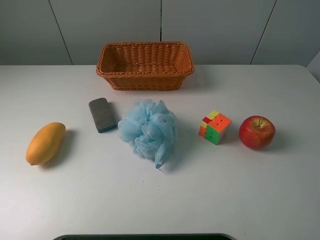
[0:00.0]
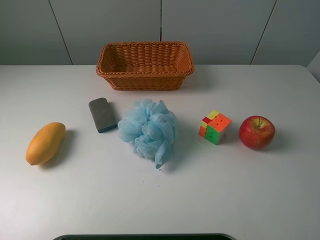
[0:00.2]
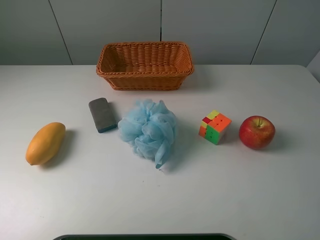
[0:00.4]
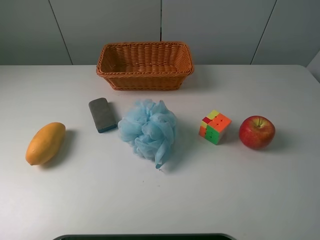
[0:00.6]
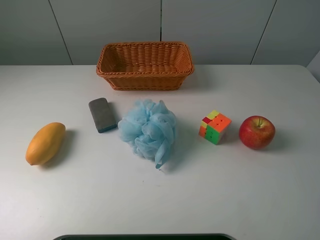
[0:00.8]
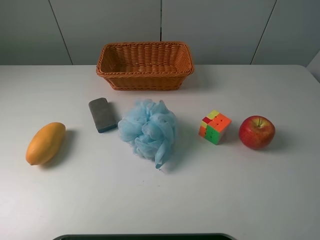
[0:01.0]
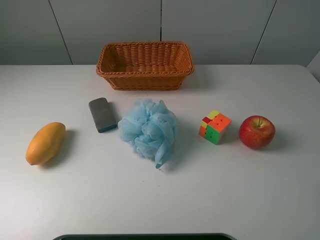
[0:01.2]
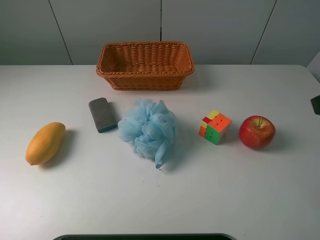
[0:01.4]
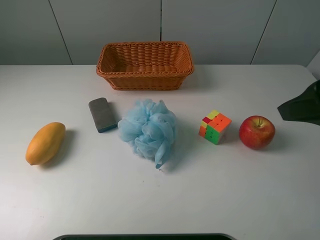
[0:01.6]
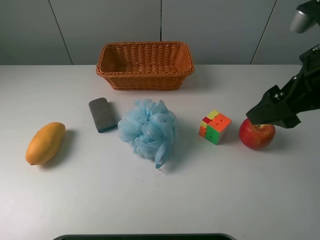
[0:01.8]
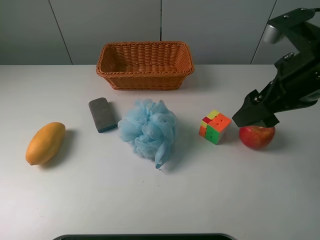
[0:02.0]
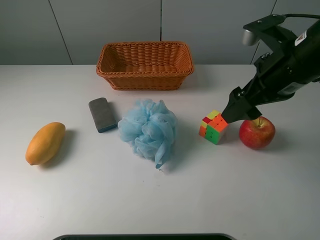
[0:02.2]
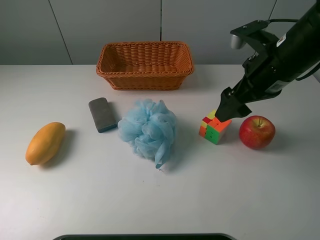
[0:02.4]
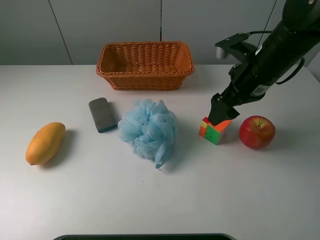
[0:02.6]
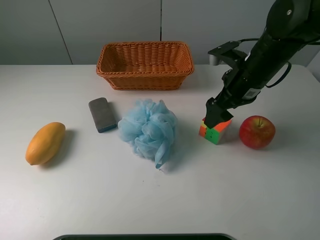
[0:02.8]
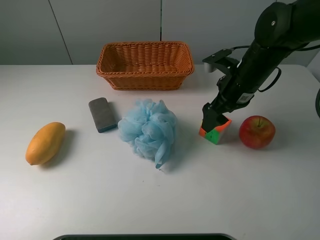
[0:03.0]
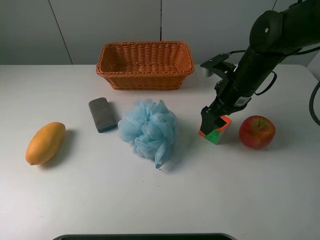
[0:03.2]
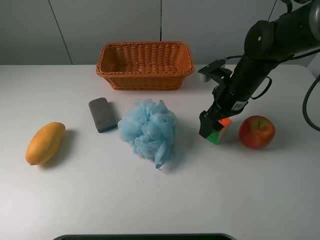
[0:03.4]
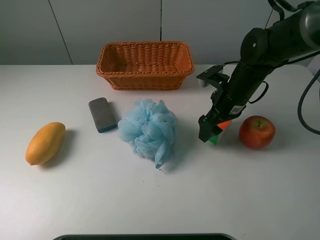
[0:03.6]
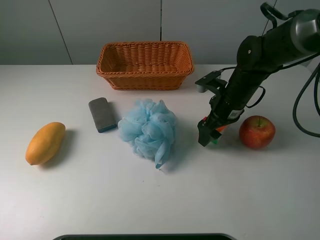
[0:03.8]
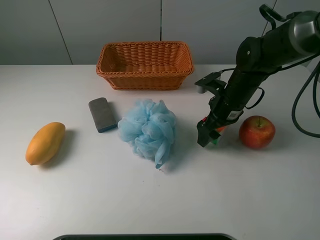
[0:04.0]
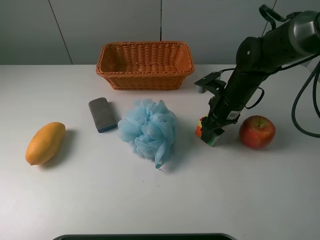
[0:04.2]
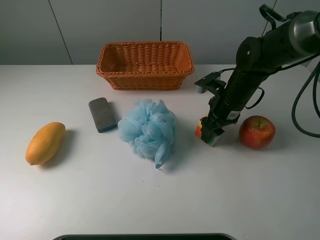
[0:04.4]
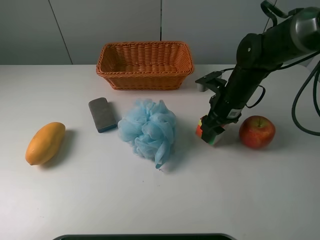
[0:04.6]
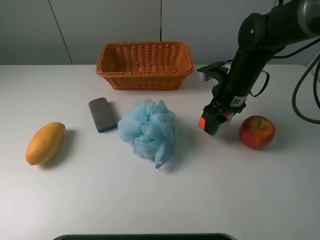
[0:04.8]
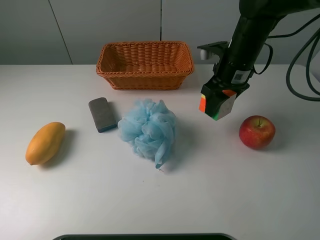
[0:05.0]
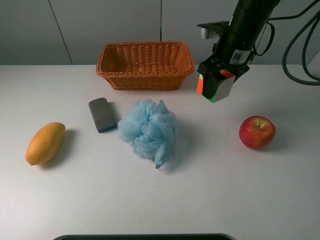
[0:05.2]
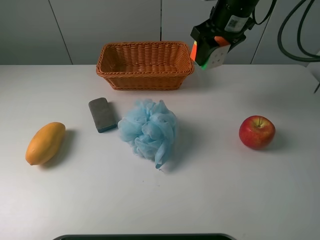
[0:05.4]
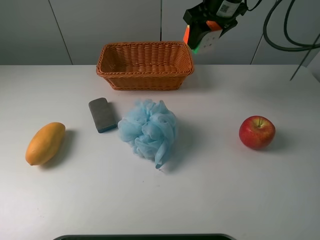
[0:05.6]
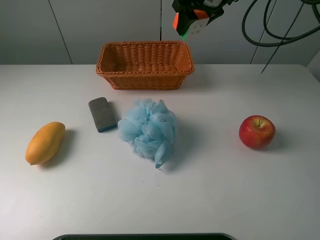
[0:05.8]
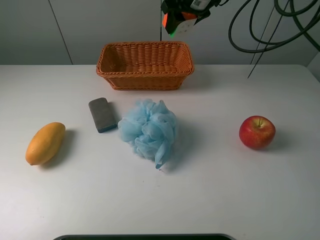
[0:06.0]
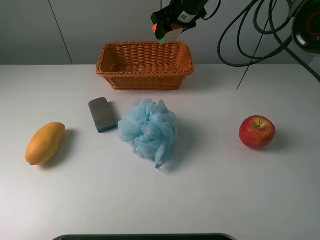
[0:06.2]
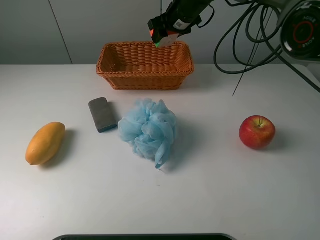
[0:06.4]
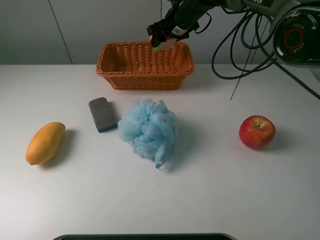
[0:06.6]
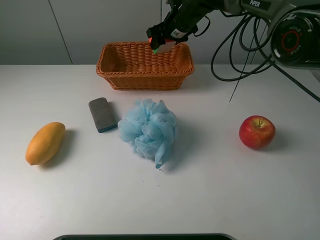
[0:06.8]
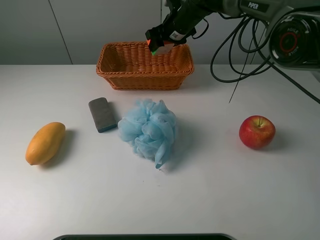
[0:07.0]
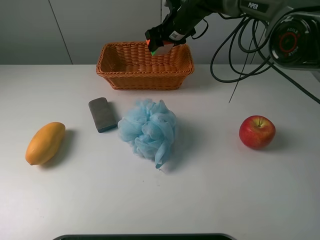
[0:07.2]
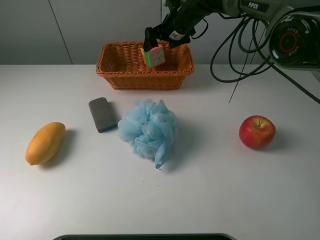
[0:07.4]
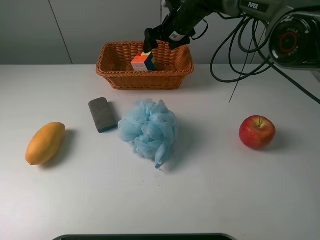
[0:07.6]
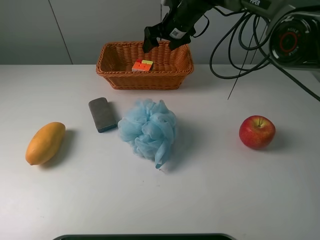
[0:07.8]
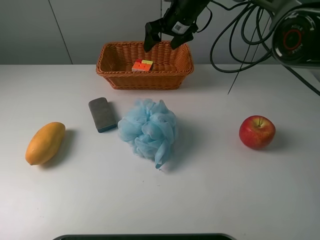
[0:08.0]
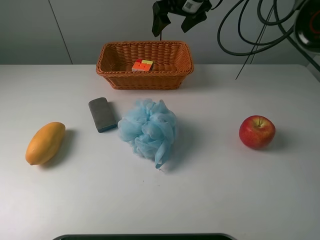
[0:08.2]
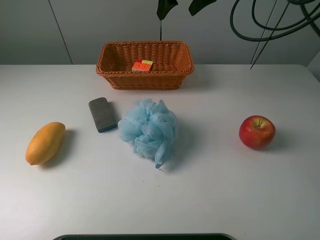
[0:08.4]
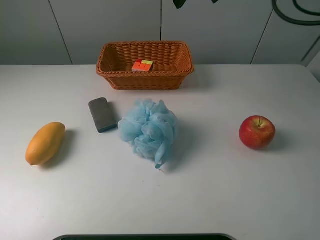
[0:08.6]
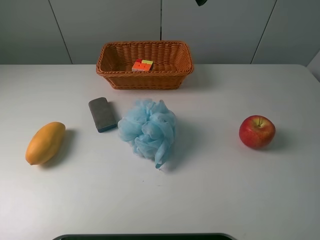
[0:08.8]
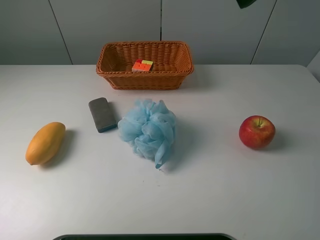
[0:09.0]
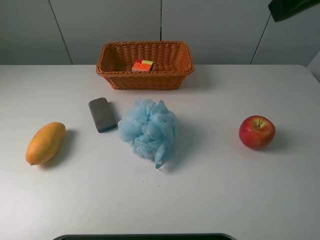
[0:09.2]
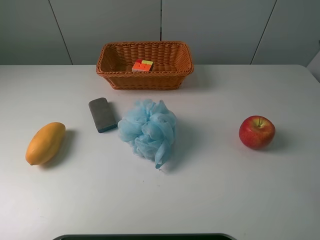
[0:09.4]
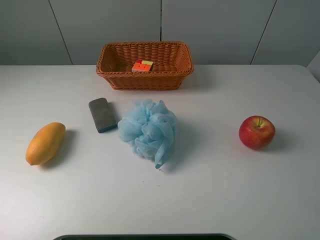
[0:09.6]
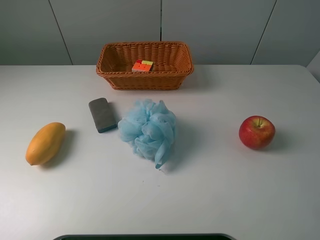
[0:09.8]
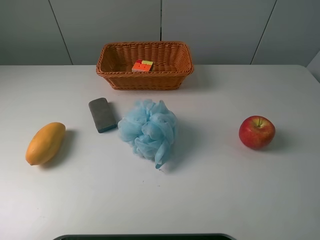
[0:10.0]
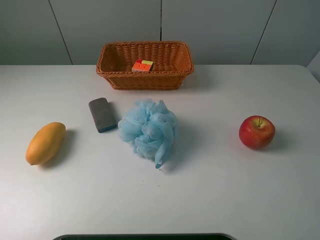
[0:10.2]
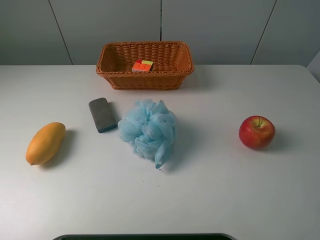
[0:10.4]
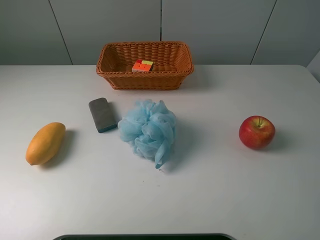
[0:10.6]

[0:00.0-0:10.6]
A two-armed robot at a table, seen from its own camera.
Task of the whole recording: use a picker to grab the item closest to the apple and place it in the basket.
Step, 0:00.0 to 0:04.4: Grasp the Rubik's Cube with the right gripper.
Step, 0:04.6 to 0:07.8: Place the Rubik's Cube into the basket with the right gripper.
0:00.0 to 0:01.6: The right gripper moves forward, approximately 15 cm.
0:01.6 to 0:03.0: The right gripper shifts some 25 cm forward, downward and to the left.
0:03.0 to 0:04.6: The right gripper closes up.
0:04.6 to 0:06.0: The right gripper goes approximately 25 cm forward, upward and to the left.
0:06.0 to 0:07.6: The right gripper goes roughly 10 cm downward, and opens up.
0:07.6 to 0:09.0: The right gripper moves backward, upward and to the right, about 40 cm.

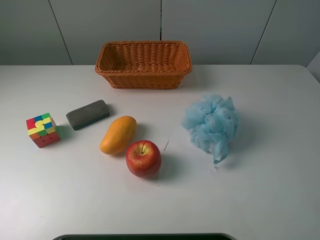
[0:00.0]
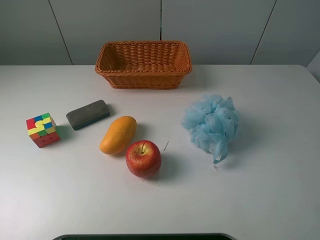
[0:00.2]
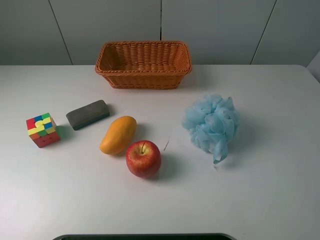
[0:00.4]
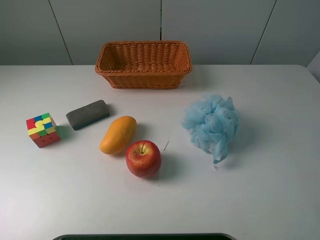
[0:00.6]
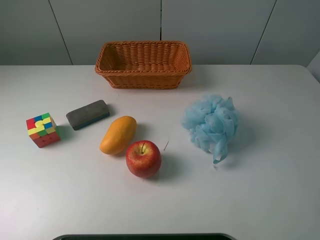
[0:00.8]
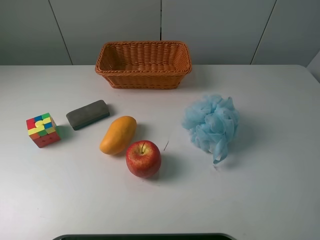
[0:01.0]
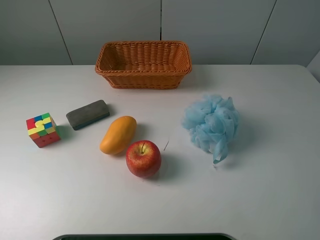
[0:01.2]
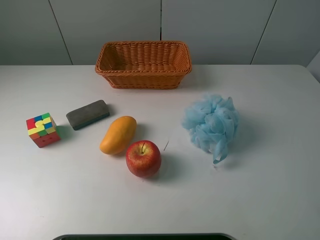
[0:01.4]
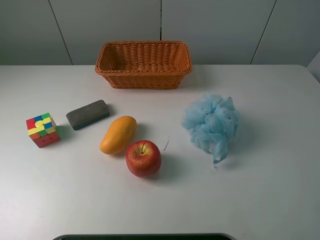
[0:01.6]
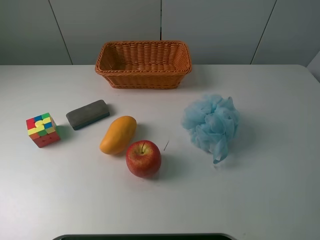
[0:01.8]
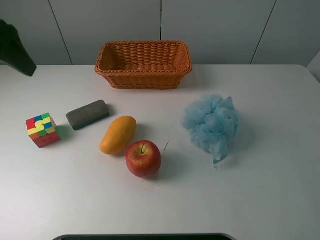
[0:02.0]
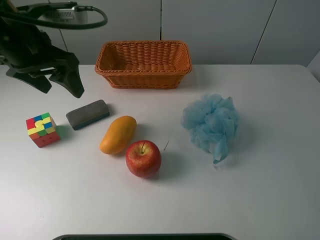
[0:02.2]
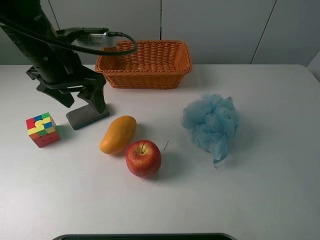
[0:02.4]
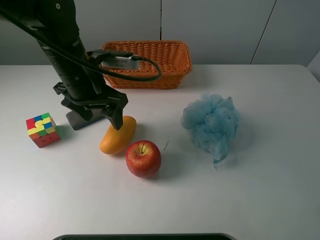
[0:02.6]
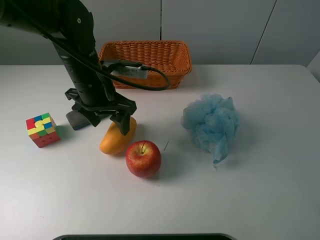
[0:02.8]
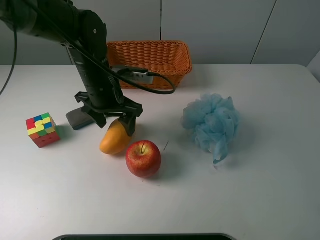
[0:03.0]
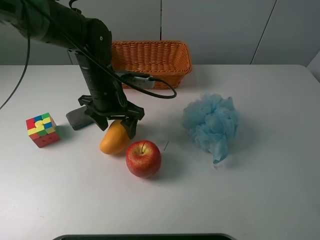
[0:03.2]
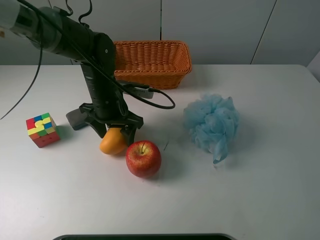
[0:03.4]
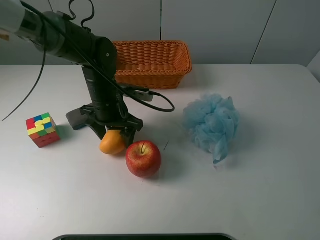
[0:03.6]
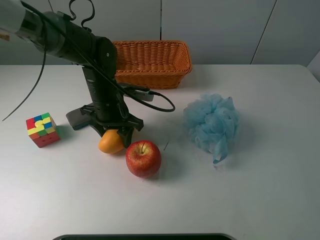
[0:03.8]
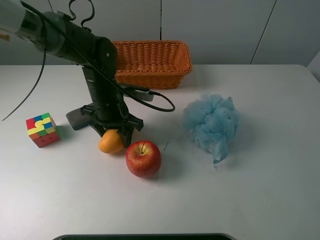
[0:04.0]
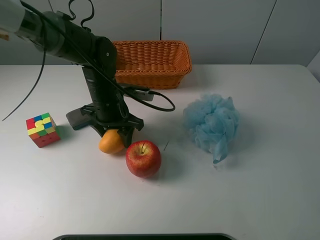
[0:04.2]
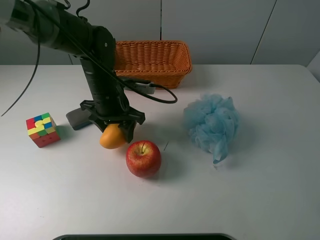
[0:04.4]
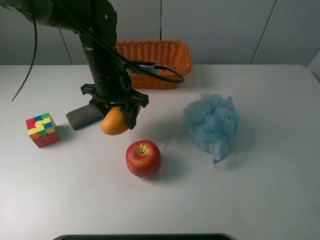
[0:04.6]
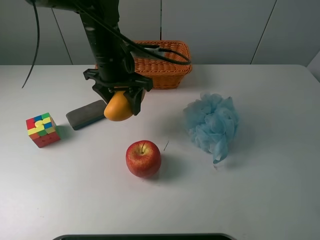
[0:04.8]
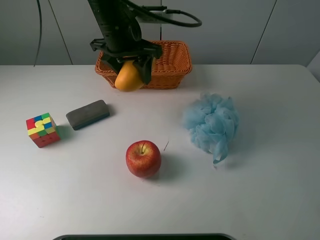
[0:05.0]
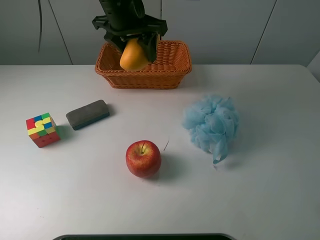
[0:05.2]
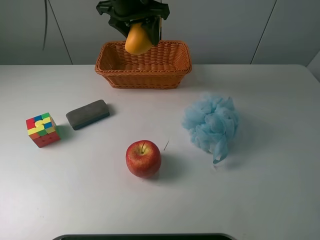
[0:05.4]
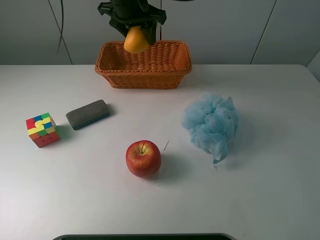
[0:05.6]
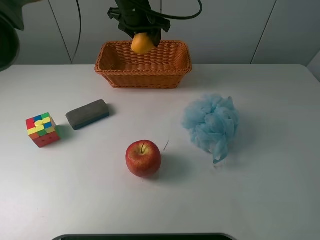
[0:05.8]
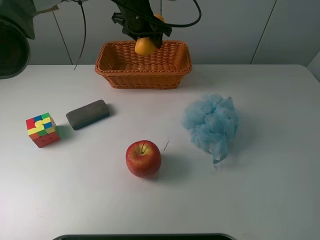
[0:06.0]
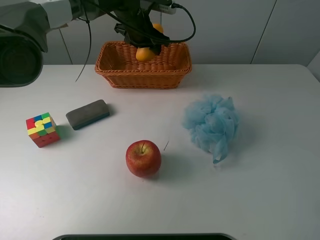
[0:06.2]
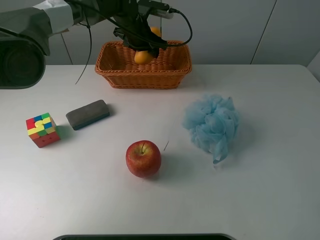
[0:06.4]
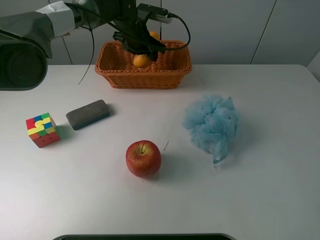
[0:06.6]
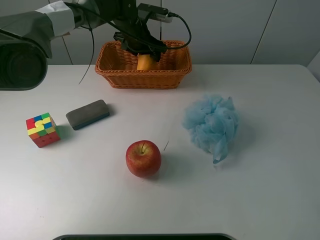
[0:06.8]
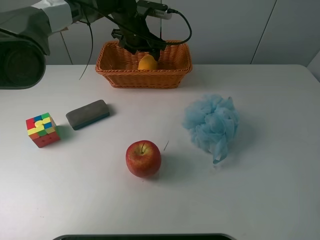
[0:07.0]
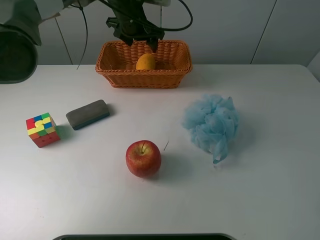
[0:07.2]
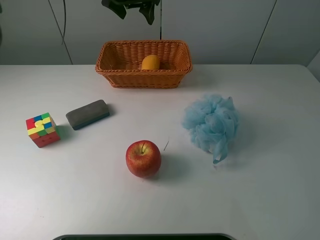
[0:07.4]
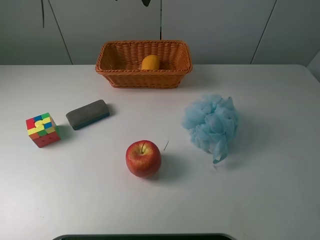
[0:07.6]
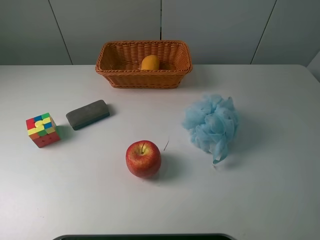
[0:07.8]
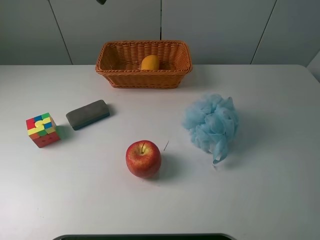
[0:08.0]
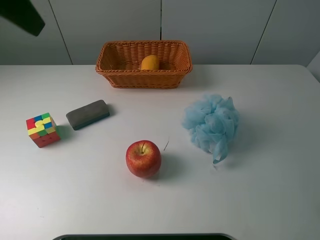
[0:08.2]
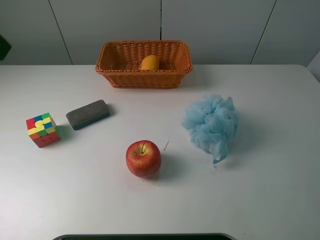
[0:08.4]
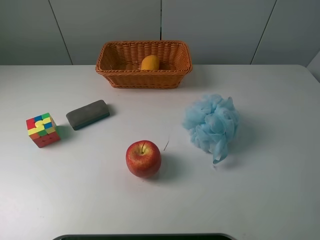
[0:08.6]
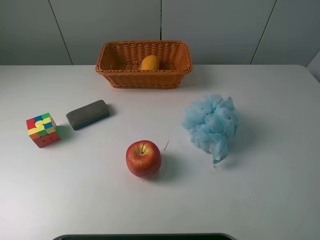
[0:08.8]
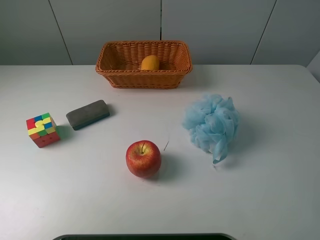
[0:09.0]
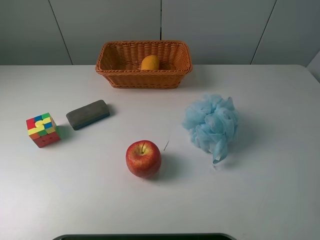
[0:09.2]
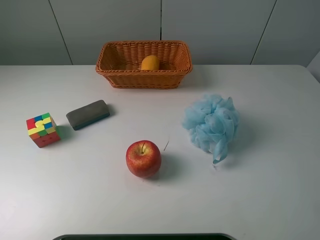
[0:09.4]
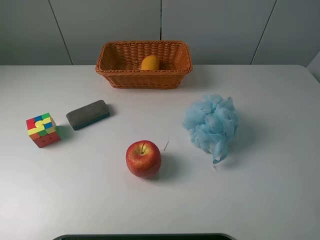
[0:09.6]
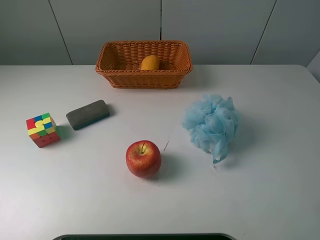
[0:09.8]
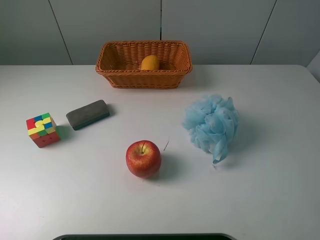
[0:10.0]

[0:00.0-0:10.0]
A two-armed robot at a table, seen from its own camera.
Task of the whole recording: use a picker to grab the item closest to the apple and place it in the basket.
Step, 0:00.0 to 0:04.0: Grasp the mango with the left gripper.
Step, 0:04.2 to 0:07.2: Place the mango into the basket with the left gripper.
0:01.4 to 0:02.8: The left gripper moves forward, to the right and downward, approximately 35 cm.
0:02.8 to 0:04.2: The left gripper moves downward, some 5 cm, and closes its fingers.
0:04.2 to 0:05.8: The left gripper shifts some 20 cm forward and upward.
0:05.8 to 0:07.2: The left gripper opens.
0:07.2 to 0:08.6: The left gripper moves backward and to the left, roughly 40 cm.
